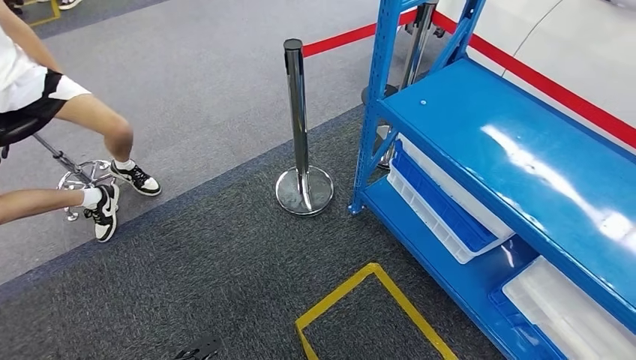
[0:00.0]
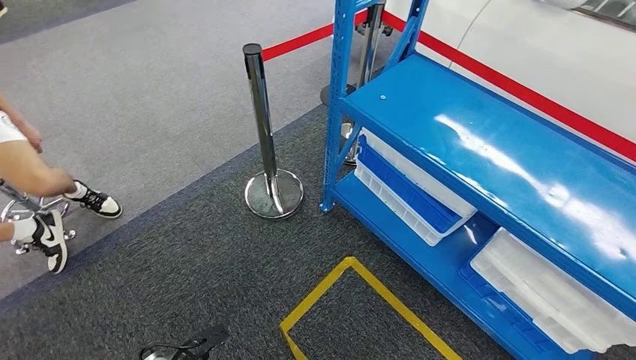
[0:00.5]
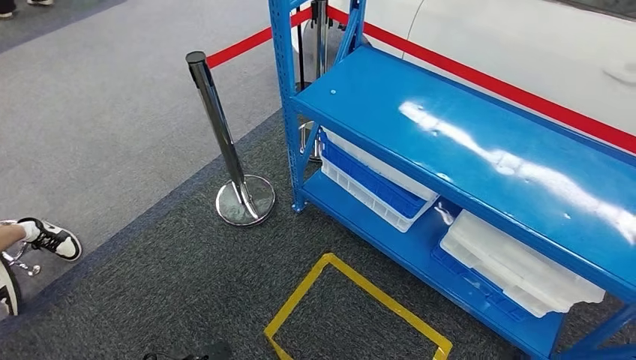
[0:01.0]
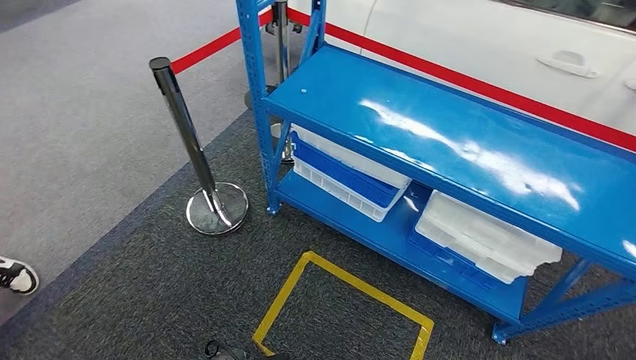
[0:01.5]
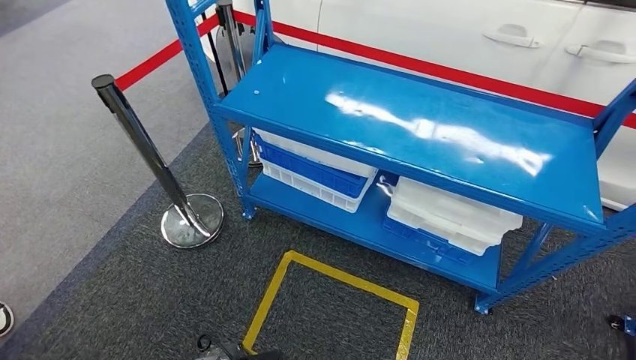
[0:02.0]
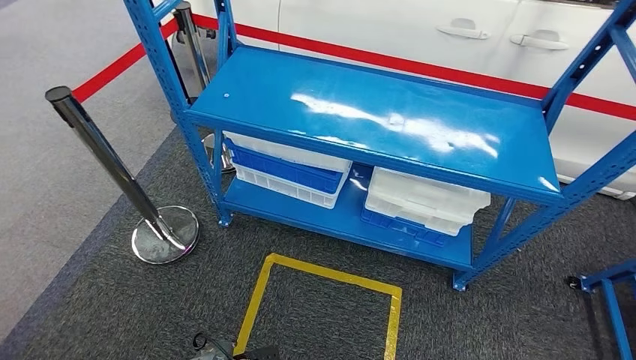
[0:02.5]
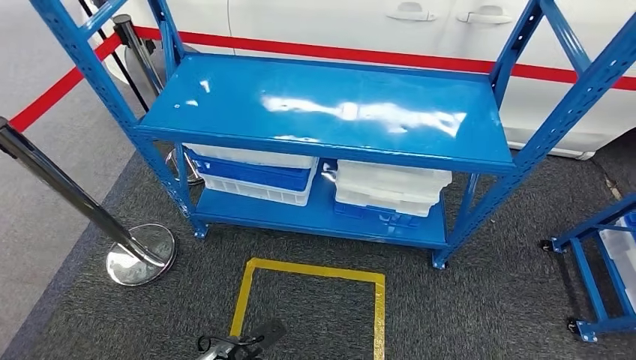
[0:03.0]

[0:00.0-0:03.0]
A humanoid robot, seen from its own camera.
Step, 0:00.0 to 0:03.0: Move to the initial position of the shelf.
